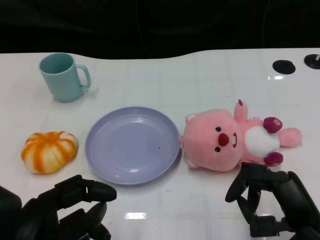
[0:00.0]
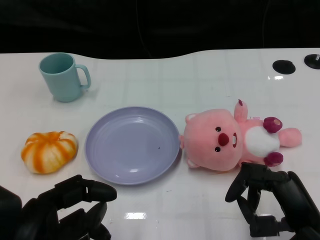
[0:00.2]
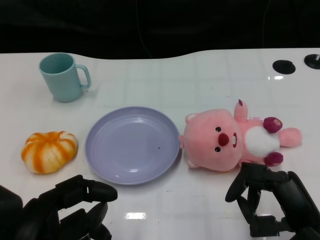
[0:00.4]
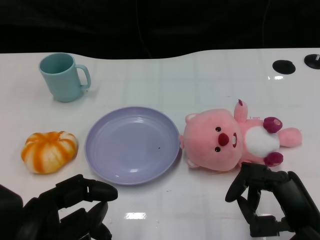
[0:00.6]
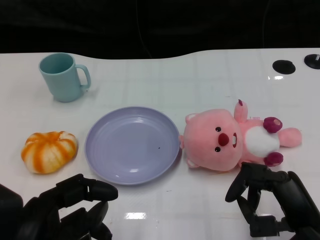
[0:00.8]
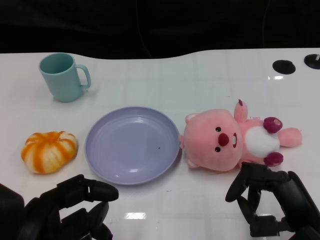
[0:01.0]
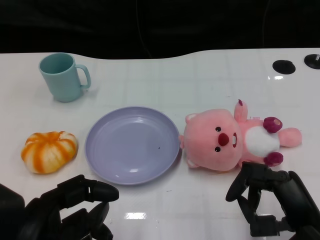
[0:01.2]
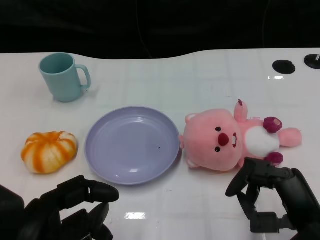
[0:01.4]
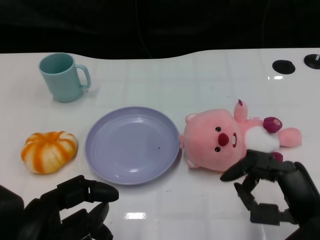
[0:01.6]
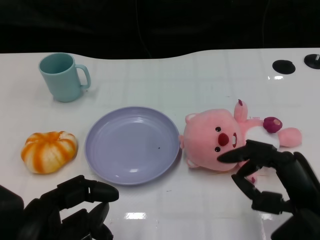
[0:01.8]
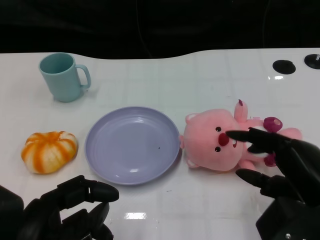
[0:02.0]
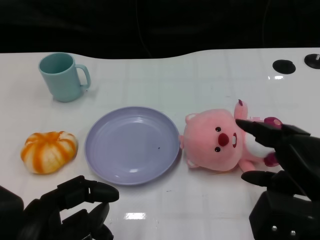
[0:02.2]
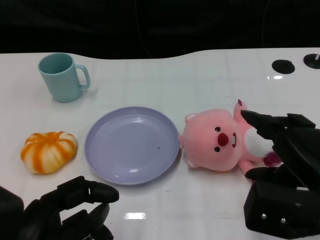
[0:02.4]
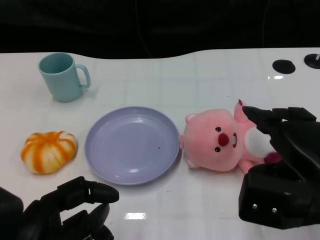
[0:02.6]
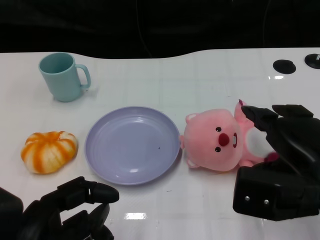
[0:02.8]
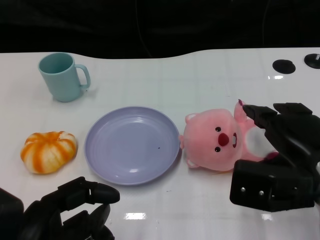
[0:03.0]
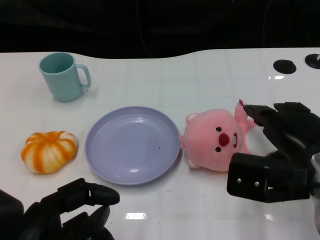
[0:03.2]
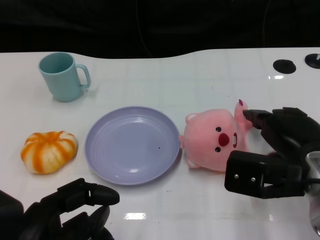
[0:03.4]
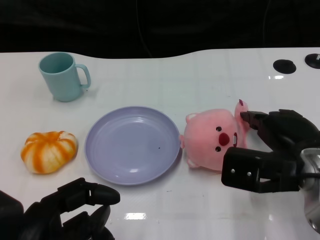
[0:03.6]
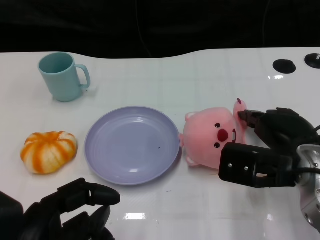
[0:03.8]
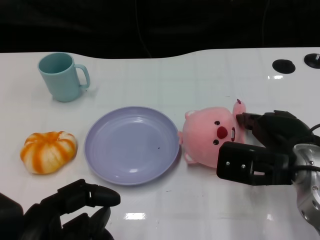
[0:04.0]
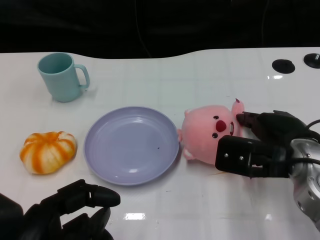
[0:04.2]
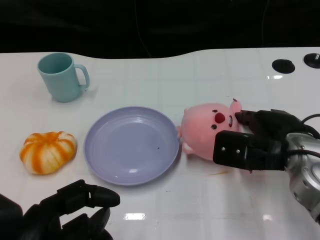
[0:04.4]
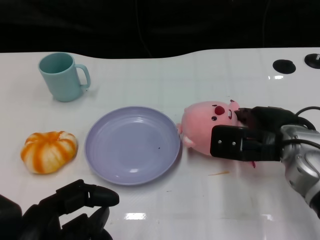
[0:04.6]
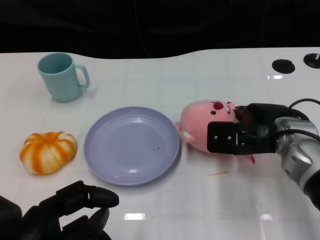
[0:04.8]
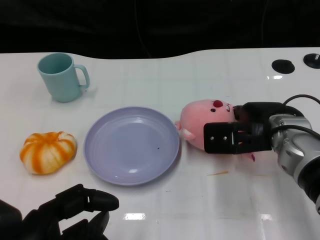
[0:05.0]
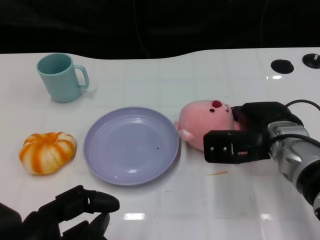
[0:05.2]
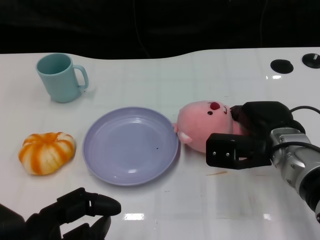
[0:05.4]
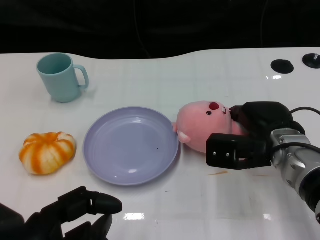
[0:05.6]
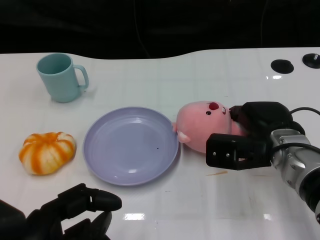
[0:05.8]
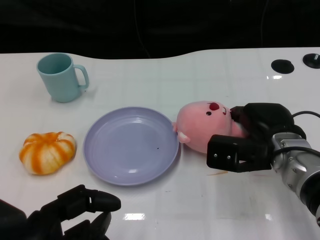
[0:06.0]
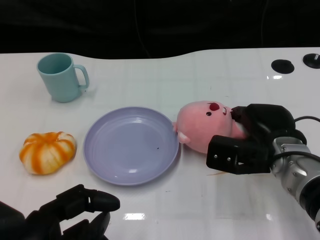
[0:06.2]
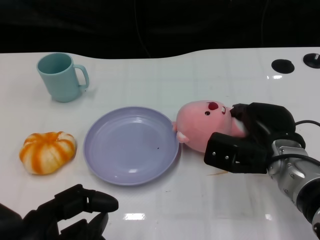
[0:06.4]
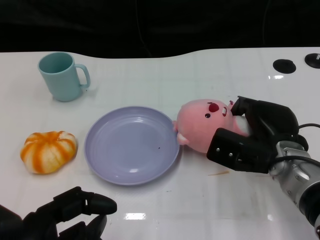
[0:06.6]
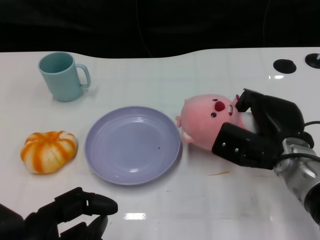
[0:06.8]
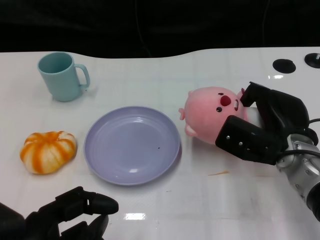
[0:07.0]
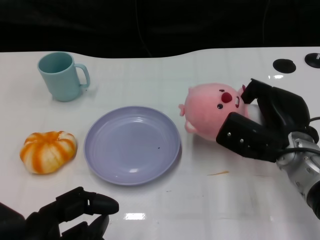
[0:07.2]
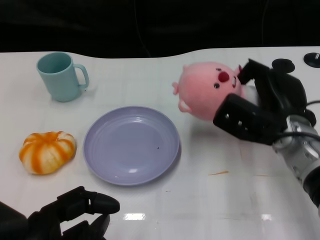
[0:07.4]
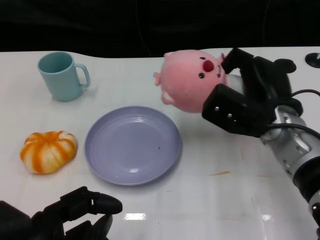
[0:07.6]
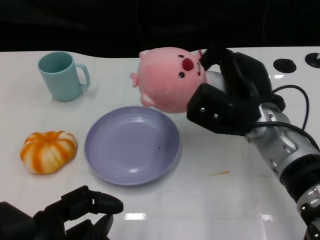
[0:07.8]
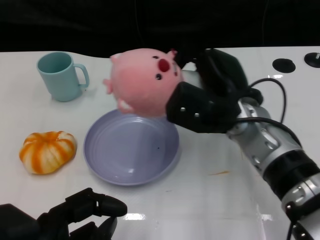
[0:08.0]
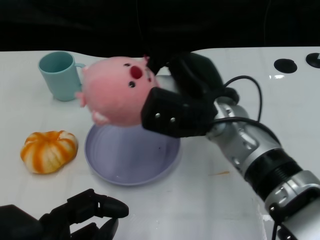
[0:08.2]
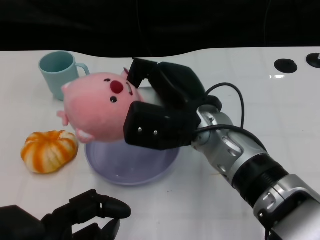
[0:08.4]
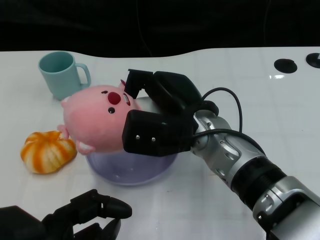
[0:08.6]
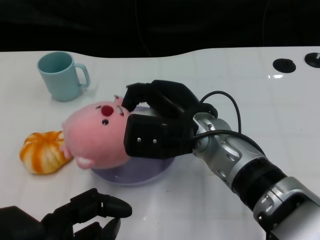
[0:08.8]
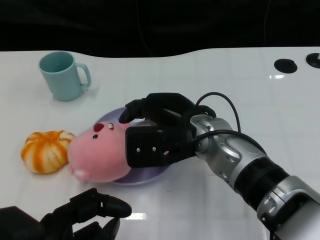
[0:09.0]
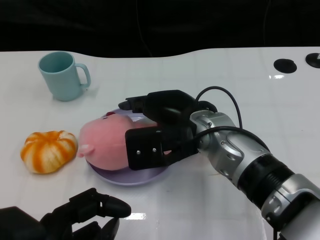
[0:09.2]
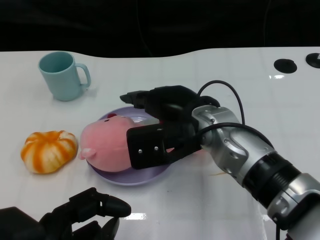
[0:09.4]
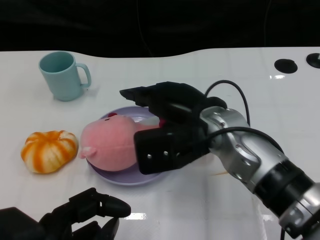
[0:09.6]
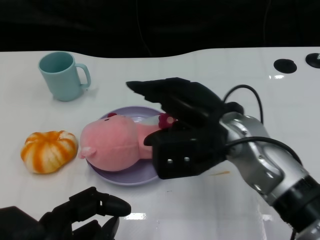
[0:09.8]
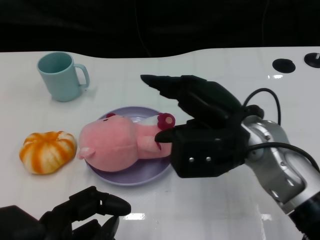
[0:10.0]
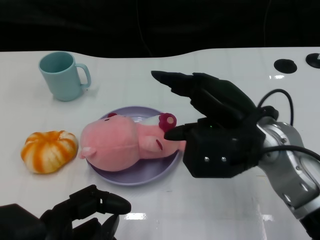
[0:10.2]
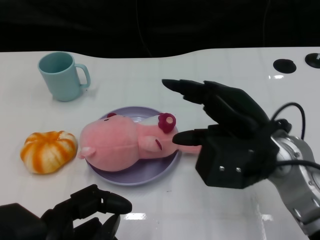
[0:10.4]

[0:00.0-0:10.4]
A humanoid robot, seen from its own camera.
Task of the whole recording: Pick up the doll on the other side of the plate and place it into the plate.
Step, 0:01.4 to 0:07.8: Grasp the pink doll with the right gripper.
Step, 0:08.0 to 0:10.4: Place the pink doll into the plate with the right gripper.
0:01.4 to 0:03.0: The right hand heads upward and forward, covering about 10 cm.
0:03.0 to 0:04.4: The right hand heads forward, covering some 5 cm.
0:04.4 to 0:06.0: There are only small adjustments of the hands.
0:07.4 to 0:09.0: The right hand heads to the left, covering approximately 15 cm.
0:09.0 to 0:10.4: The right hand shifts approximately 10 cm to the right.

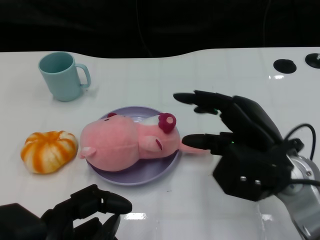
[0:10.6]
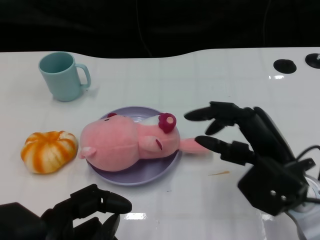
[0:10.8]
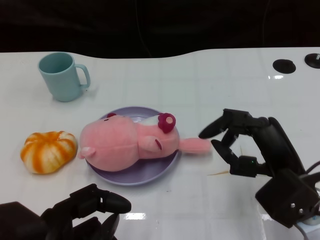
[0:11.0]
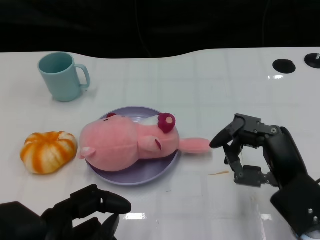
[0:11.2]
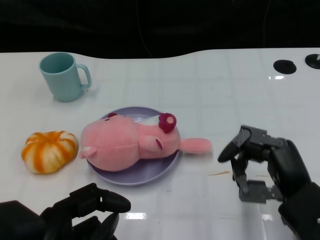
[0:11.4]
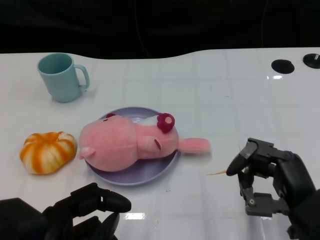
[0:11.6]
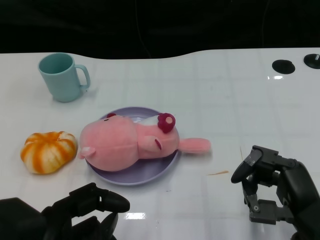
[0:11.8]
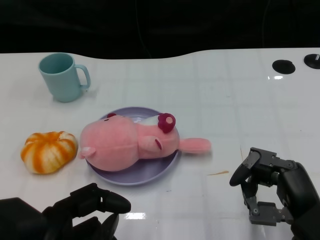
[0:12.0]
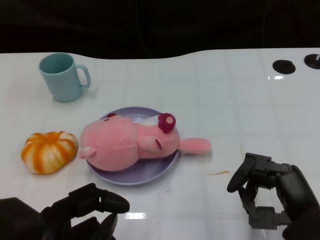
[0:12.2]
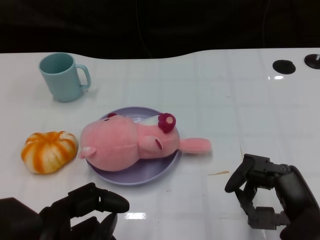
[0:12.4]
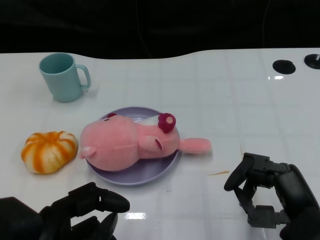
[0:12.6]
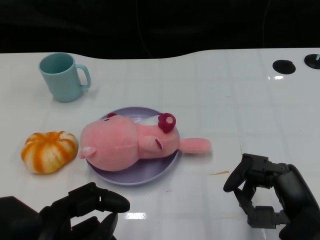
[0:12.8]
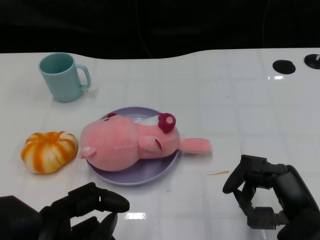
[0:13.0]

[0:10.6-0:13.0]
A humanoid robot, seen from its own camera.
Task of the whole recording: Pick up the doll on the other side of the plate and place it into the plate.
0:10.6 to 0:11.8: The right hand travels backward and downward by some 10 cm.
0:11.8 to 0:13.0: The hands move only a little.

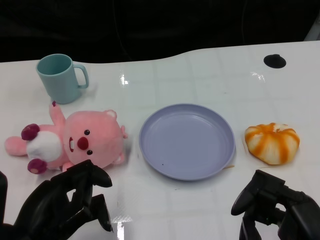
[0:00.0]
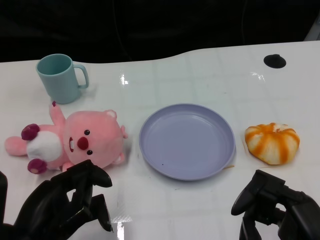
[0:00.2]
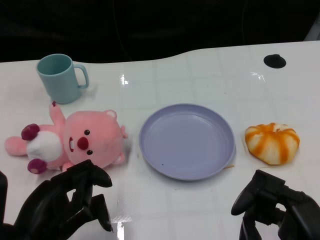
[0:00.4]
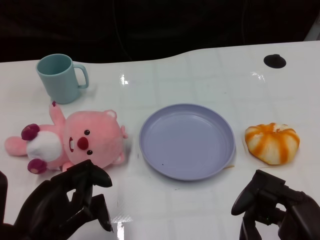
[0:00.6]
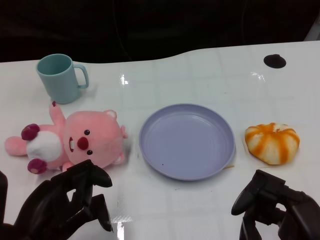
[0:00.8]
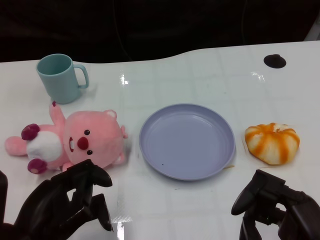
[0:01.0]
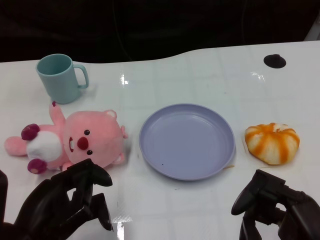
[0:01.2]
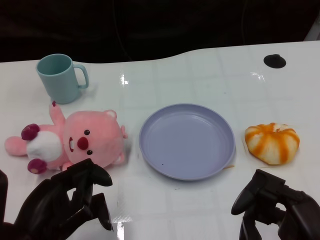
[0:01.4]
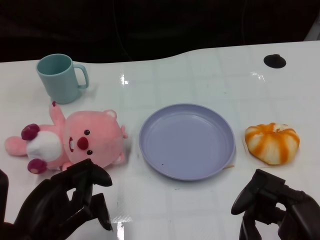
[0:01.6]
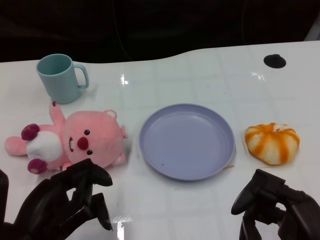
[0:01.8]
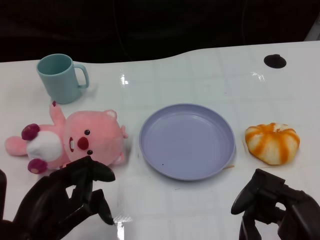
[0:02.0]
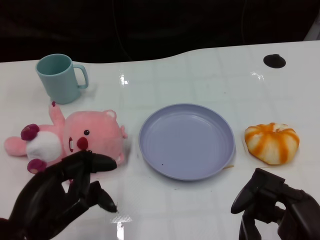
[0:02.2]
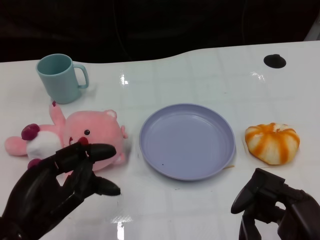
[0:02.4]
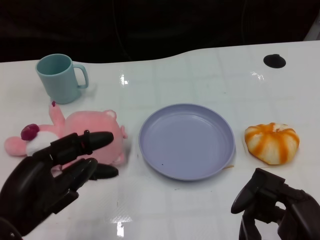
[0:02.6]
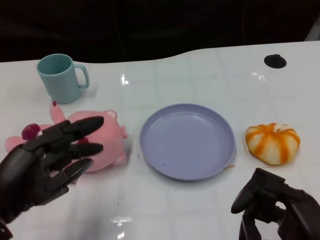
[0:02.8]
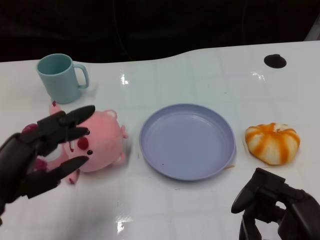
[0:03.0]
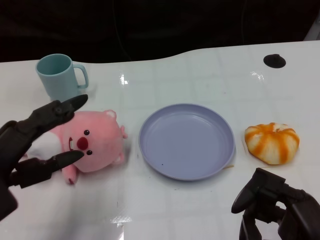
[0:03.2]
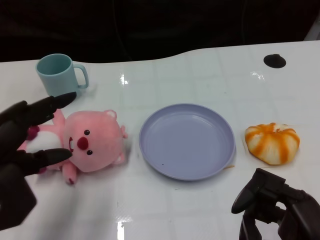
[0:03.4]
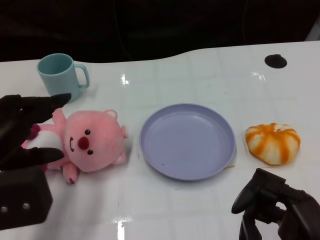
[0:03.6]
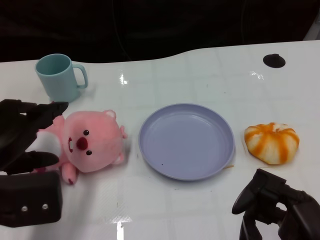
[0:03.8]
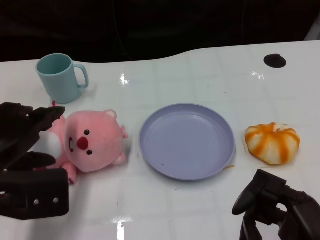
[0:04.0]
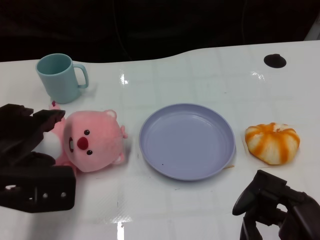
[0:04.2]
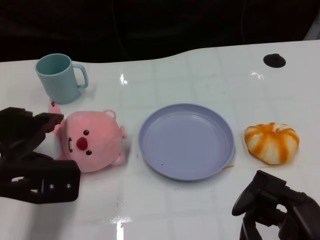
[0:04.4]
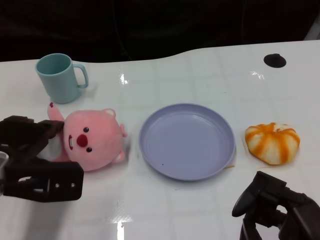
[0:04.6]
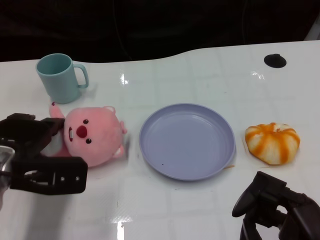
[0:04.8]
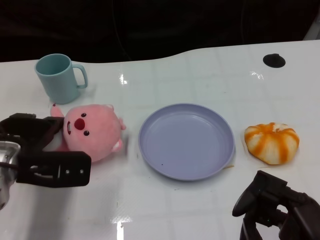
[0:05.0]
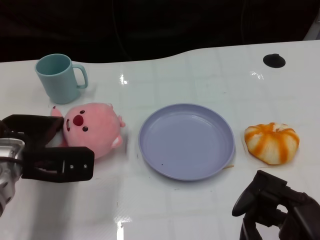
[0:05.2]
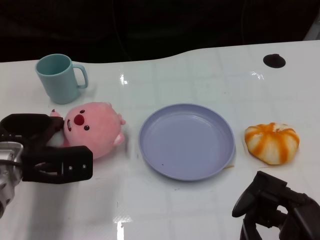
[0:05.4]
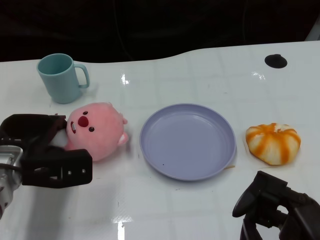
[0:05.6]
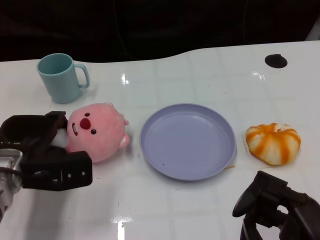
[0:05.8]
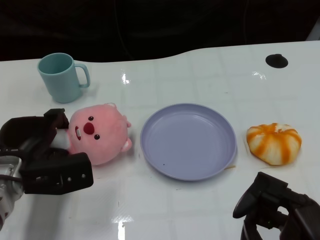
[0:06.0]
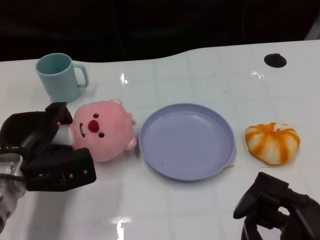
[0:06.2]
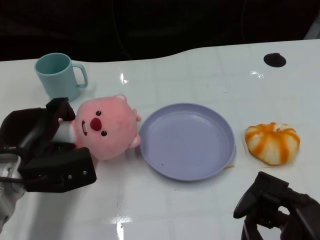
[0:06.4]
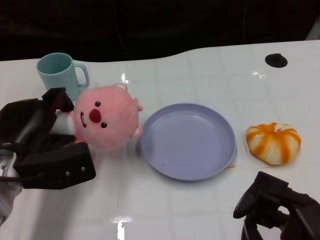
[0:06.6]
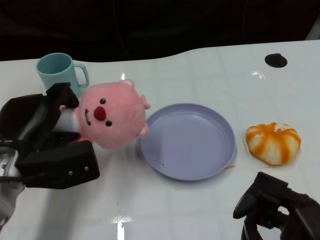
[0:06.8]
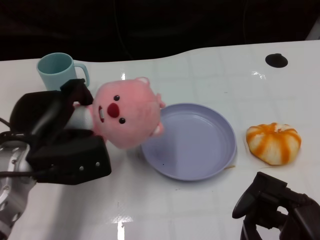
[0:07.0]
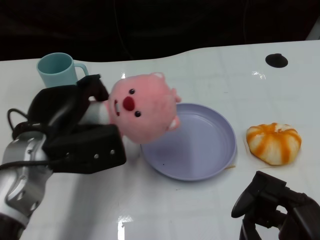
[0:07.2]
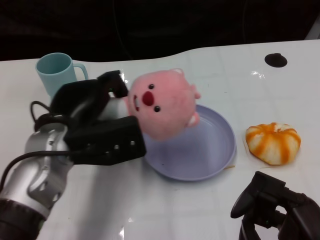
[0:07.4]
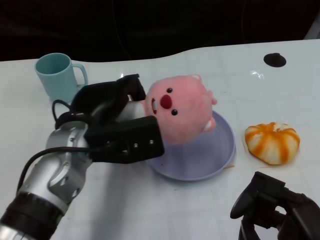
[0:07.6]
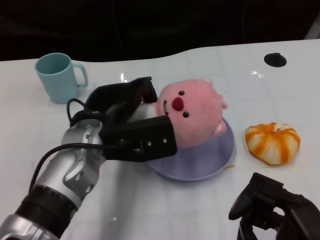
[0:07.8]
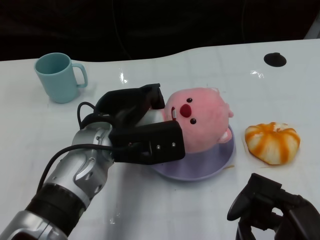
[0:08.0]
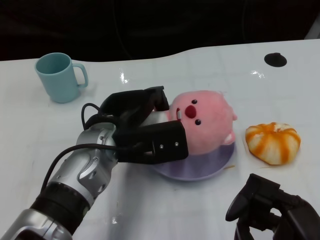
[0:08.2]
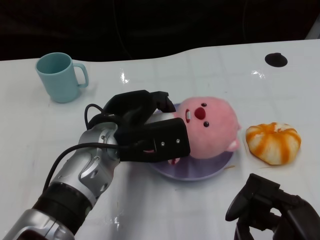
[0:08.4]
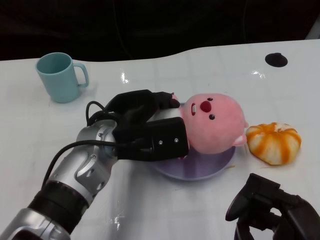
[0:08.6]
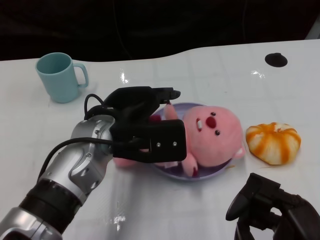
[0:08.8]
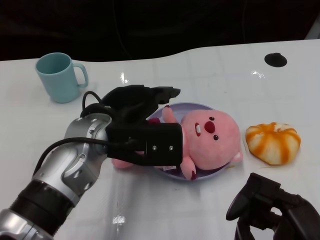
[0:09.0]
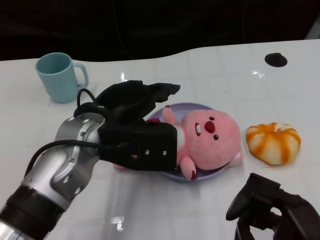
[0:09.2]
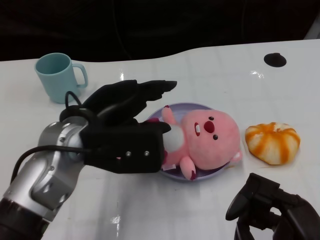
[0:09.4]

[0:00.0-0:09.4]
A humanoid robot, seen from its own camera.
Task of the whole recording: Pick up the doll on one side of the plate and place it into the plate.
Step, 0:02.0 to 0:06.4: Grasp the pink doll with the left gripper.
Step, 0:06.6 to 0:09.0: Place the pink doll into the plate with the left gripper.
0:01.6 to 0:03.2: The left hand heads upward, covering roughly 5 cm.
0:03.2 to 0:04.8: The left hand heads forward, covering approximately 10 cm.
0:06.2 to 0:07.8: The left hand goes approximately 15 cm to the right and upward.
